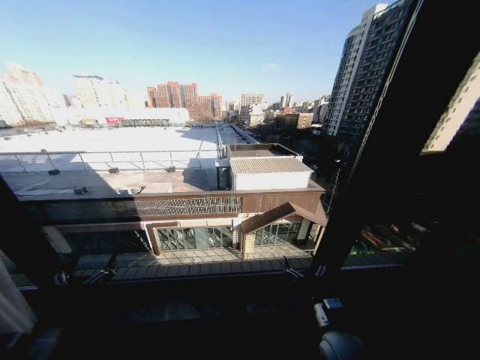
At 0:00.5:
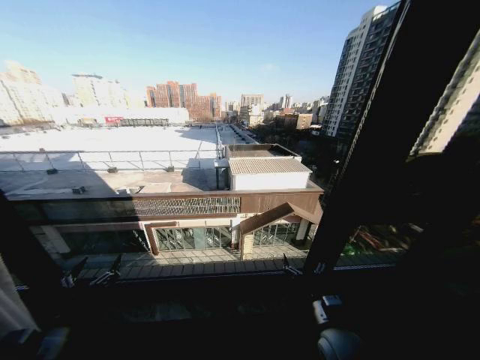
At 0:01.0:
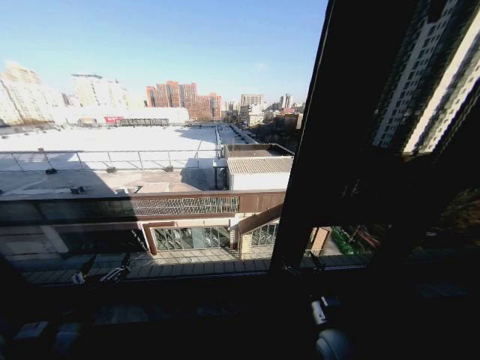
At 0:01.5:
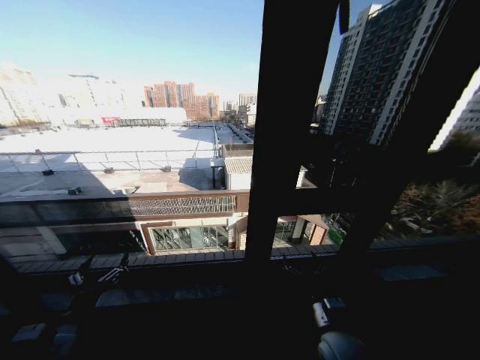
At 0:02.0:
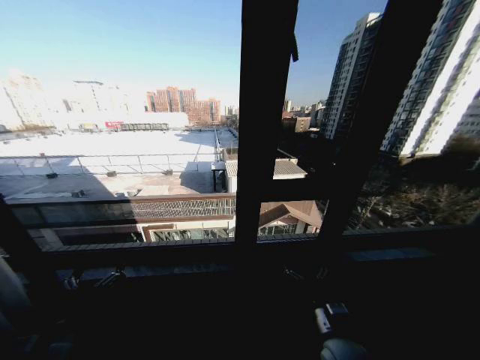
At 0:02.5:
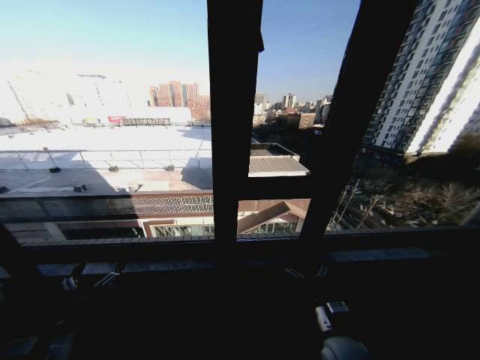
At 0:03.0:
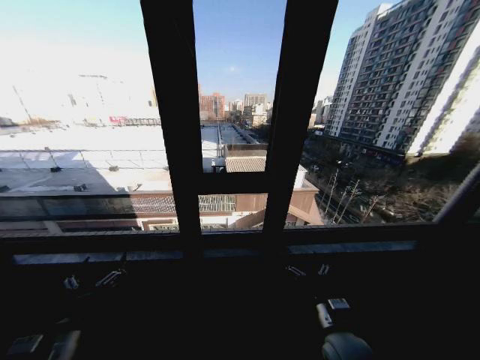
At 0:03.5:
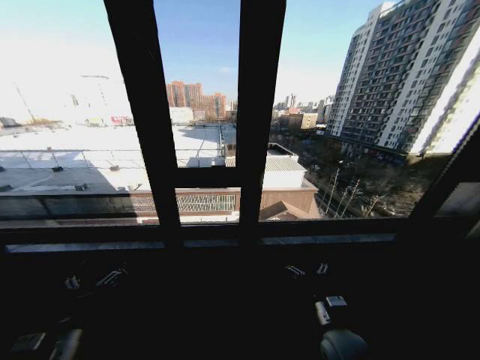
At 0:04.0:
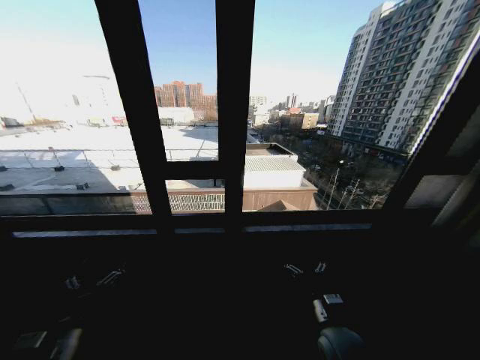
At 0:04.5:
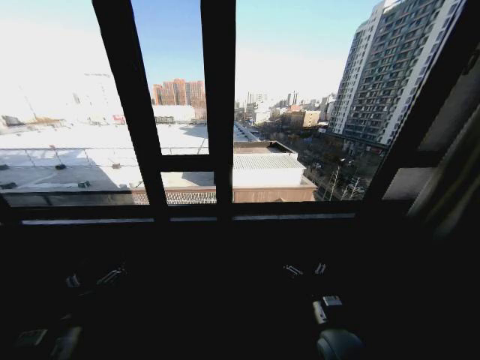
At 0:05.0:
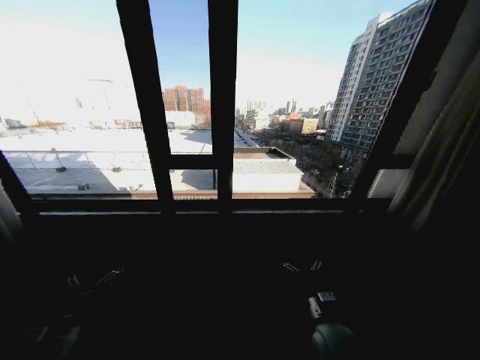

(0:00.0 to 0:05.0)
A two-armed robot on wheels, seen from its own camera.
Task of the whole recording: Open the curtains by pulling them apart, changing their state from closed to fully open.
0:00.0 - 0:02.5: The left gripper changes place by about 5 cm.

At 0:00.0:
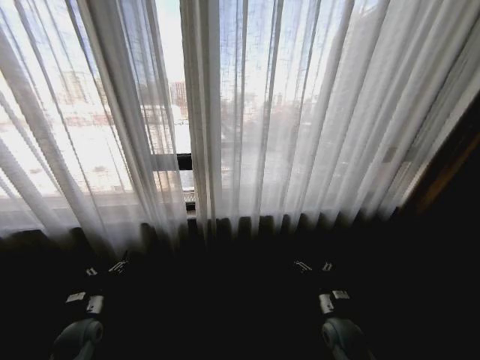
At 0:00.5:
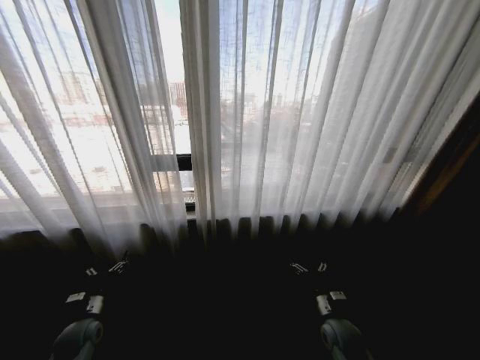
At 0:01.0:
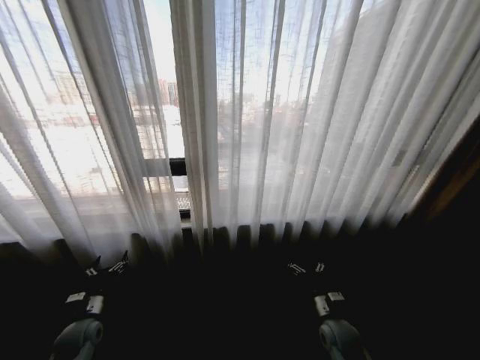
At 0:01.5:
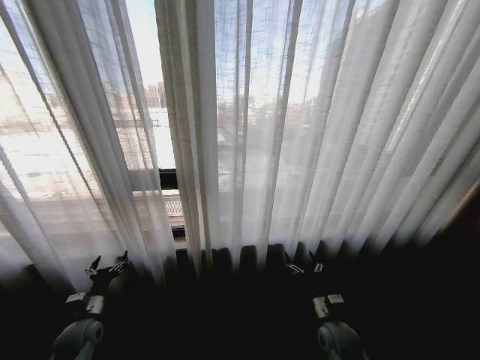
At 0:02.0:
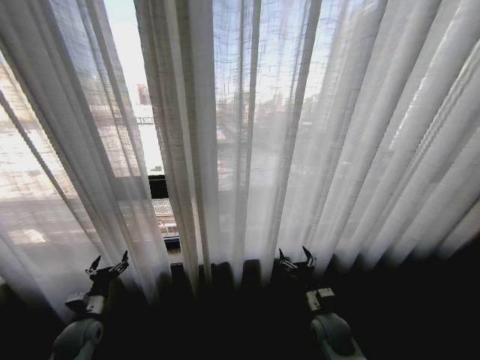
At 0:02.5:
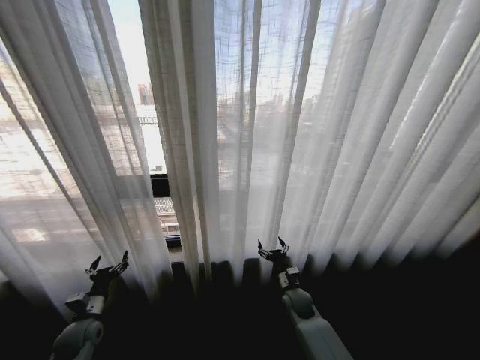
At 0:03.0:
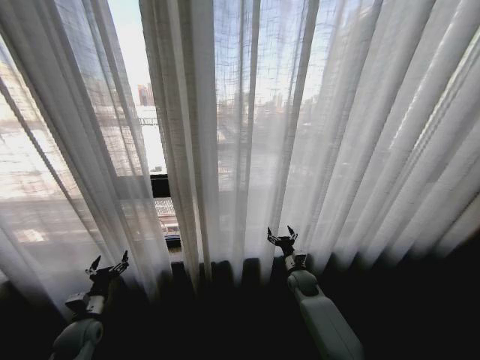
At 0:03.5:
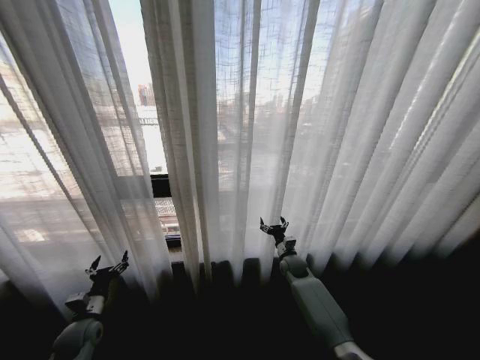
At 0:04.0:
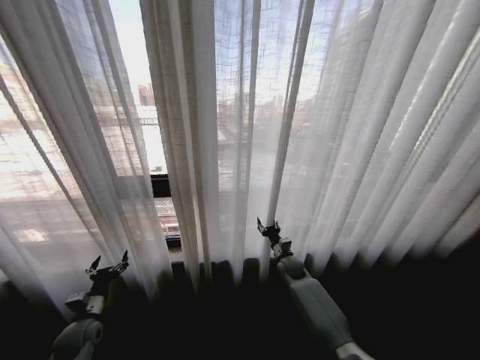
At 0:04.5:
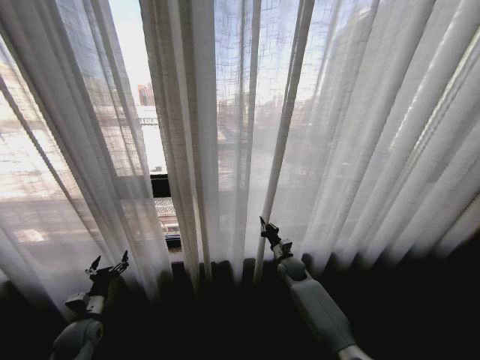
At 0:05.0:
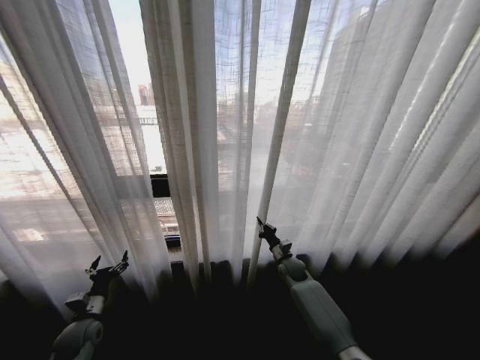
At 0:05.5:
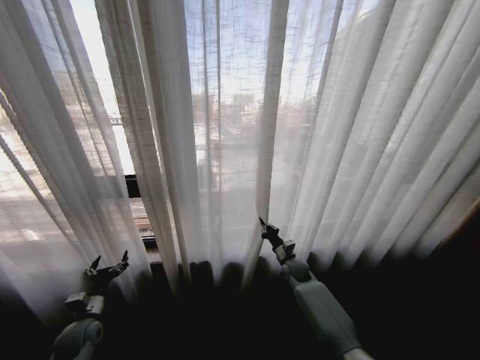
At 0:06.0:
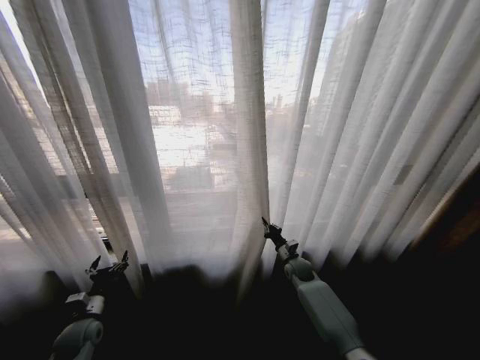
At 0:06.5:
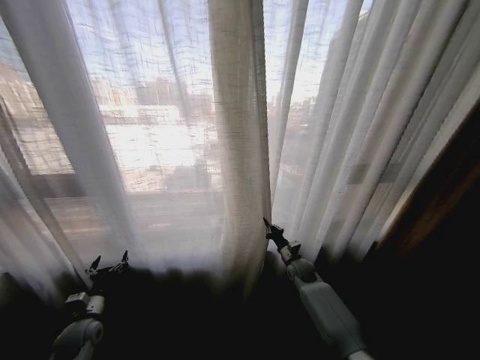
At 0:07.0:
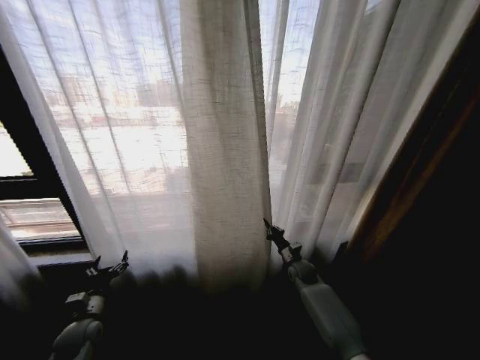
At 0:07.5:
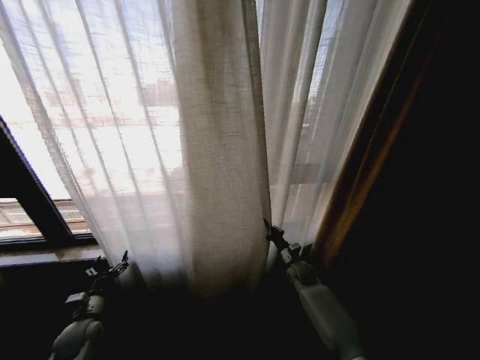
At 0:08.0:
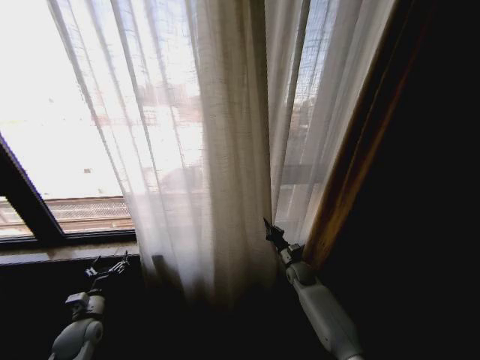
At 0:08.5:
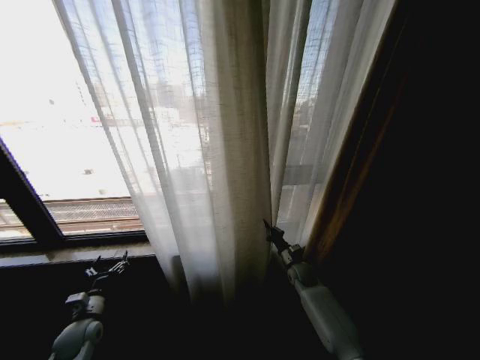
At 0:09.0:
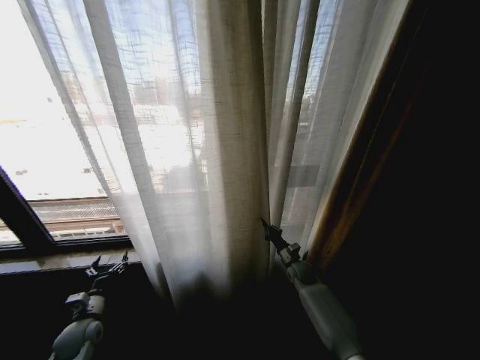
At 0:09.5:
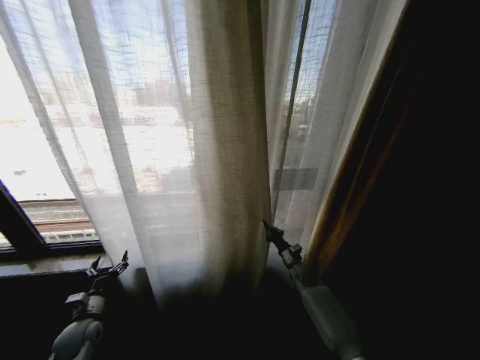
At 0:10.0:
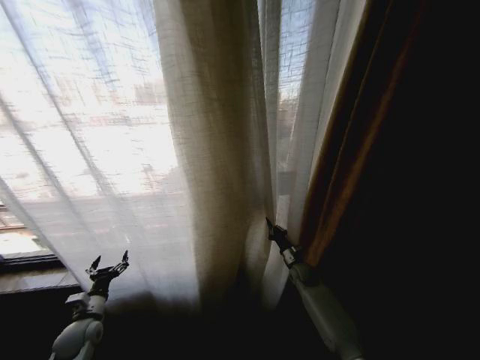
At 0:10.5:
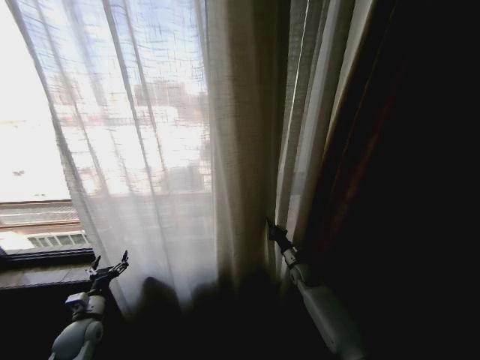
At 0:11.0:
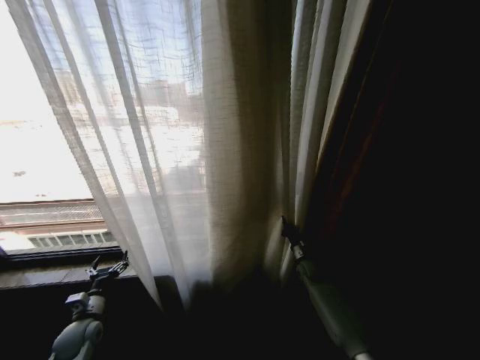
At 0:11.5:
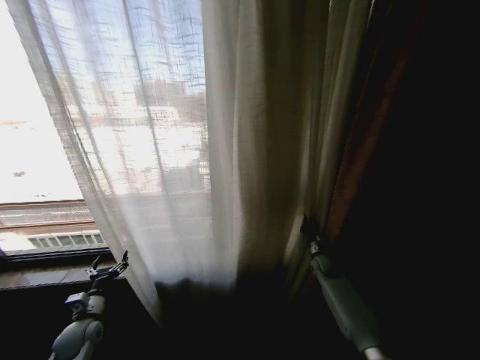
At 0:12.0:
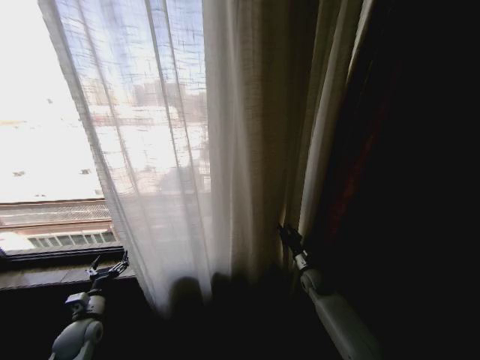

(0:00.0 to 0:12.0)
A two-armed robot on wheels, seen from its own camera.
Task of the whole recording: Open the curtains by pulling them apart, changing their state from closed to fully open.
0:02.0 - 0:04.0: The right gripper is displaced forward by about 20 cm.
0:04.0 - 0:06.0: The right gripper closes its fingers.

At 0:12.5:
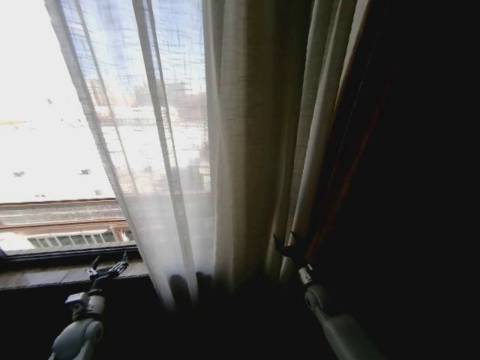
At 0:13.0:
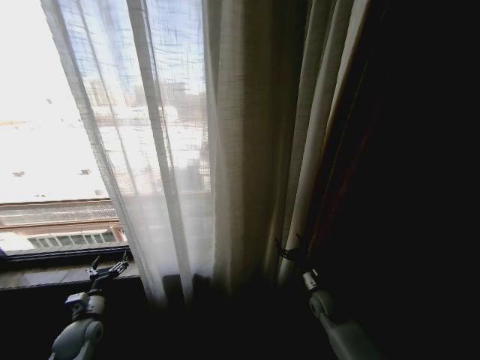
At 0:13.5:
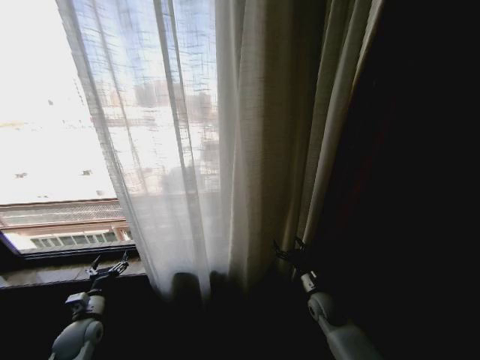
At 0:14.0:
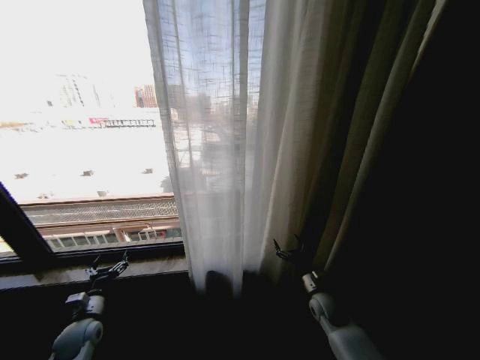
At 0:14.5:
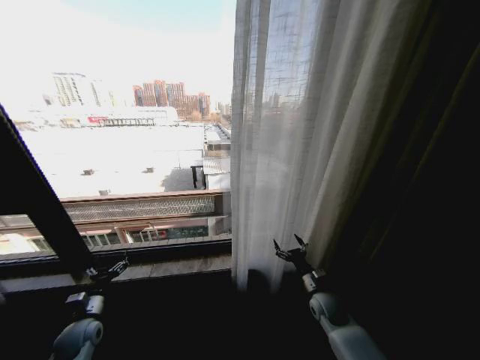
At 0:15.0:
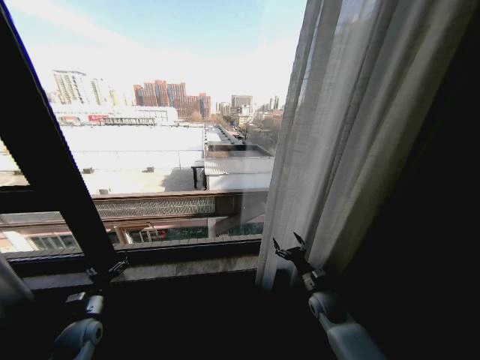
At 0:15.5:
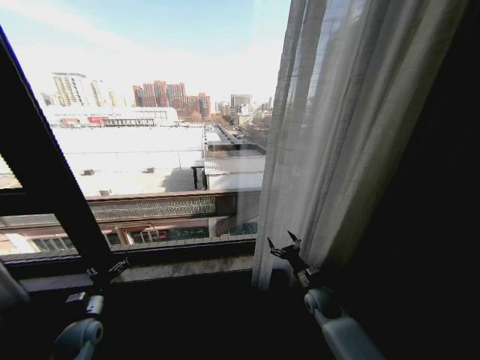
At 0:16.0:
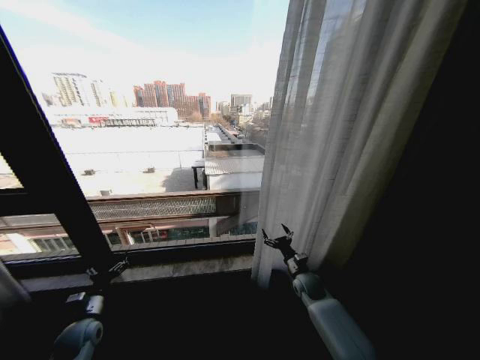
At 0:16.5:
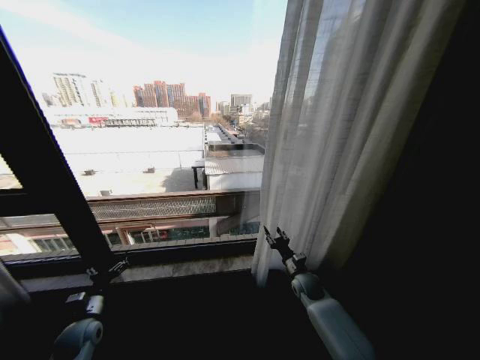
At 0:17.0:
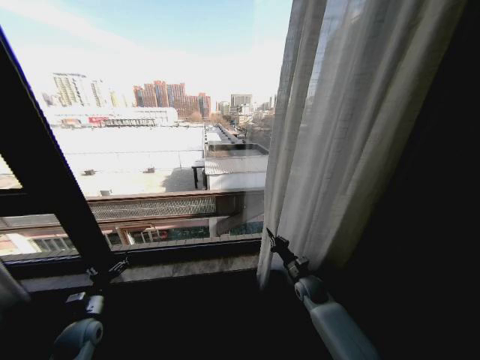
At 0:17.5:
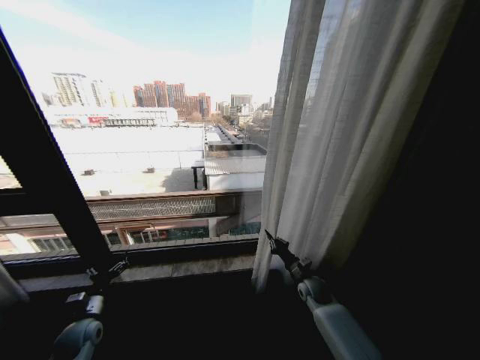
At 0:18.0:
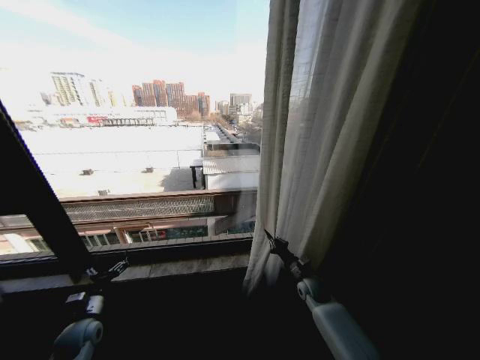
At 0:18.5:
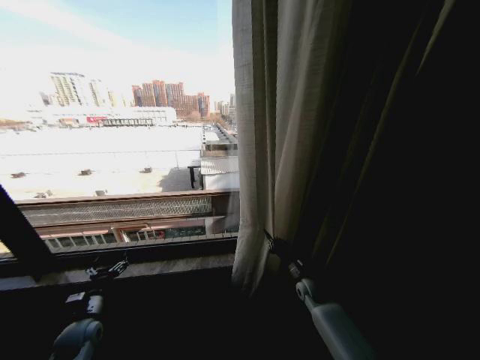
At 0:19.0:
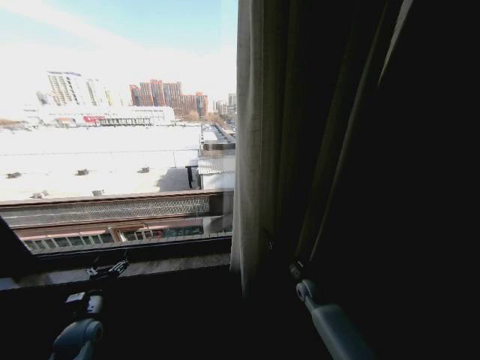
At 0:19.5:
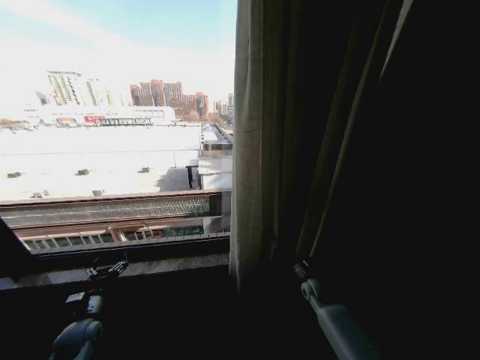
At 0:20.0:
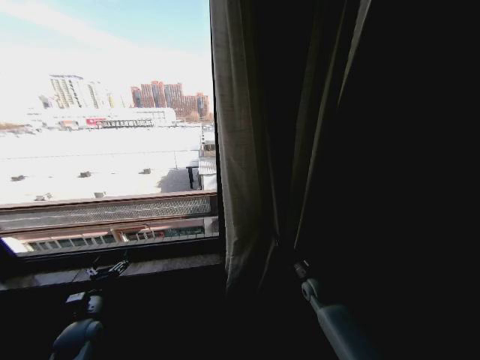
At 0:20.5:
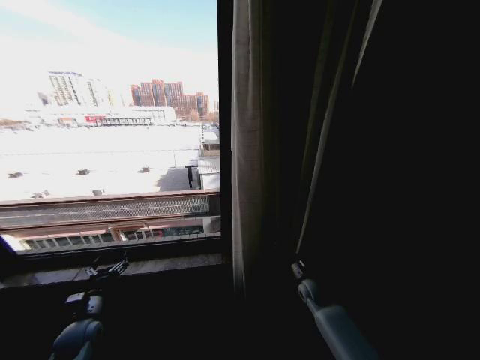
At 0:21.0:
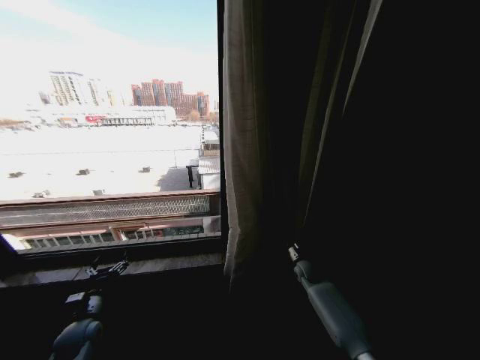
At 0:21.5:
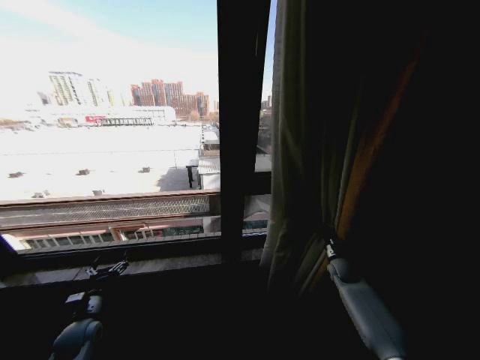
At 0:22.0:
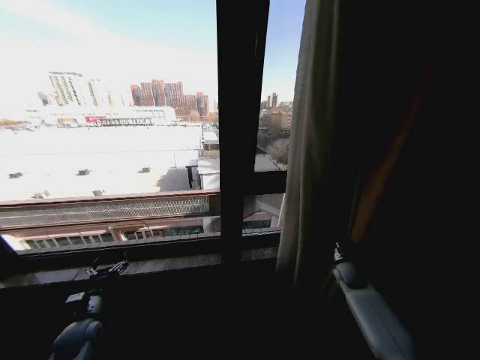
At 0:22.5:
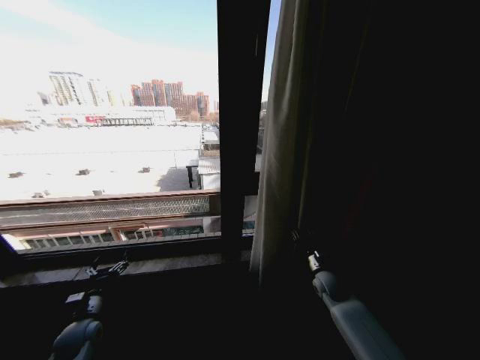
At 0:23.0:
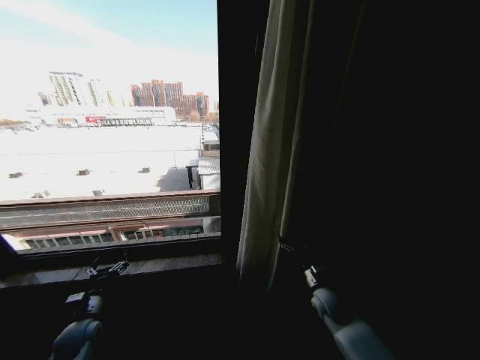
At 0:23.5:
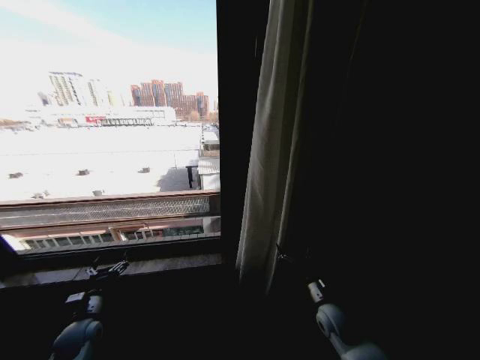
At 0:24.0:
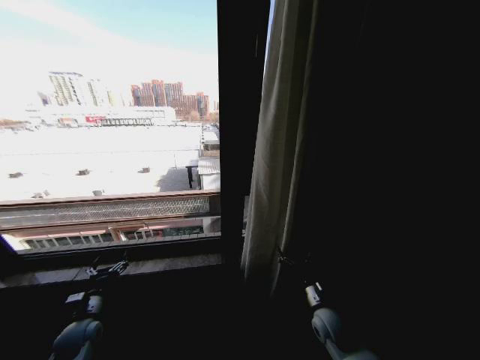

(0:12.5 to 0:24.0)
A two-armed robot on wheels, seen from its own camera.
Task of the whole recording: Open the curtains by pulling them apart, changing their state from closed to fully open.
0:14.5 - 0:16.5: The right gripper is displaced forward by about 5 cm, and closes.
0:16.5 - 0:18.5: The right gripper closes up.
0:18.5 - 0:20.0: The grippers make only small movements.
0:20.0 - 0:22.0: The right gripper shifts some 15 cm to the right.
0:22.0 - 0:24.0: The right gripper is displaced to the left and backward by roughly 20 cm, and opens its fingers.
